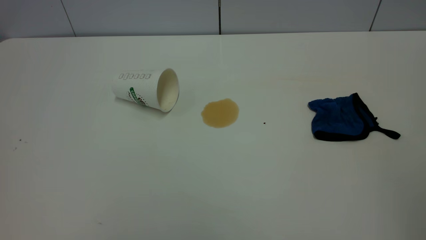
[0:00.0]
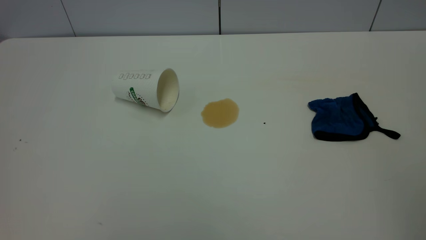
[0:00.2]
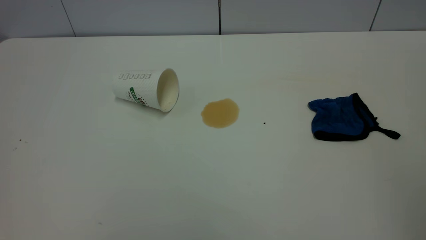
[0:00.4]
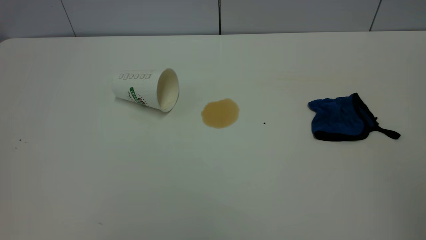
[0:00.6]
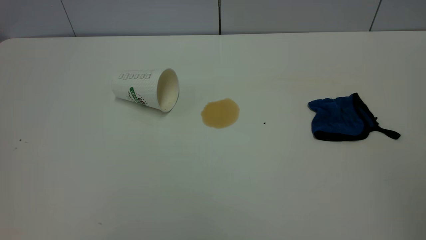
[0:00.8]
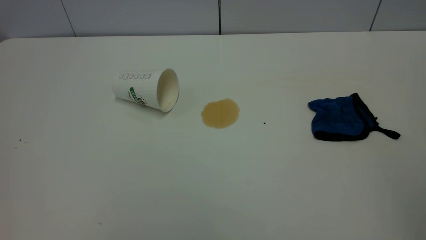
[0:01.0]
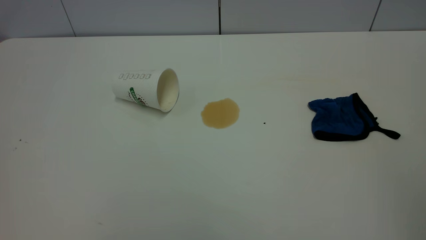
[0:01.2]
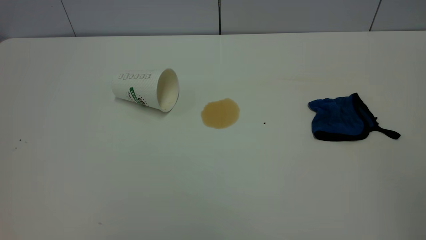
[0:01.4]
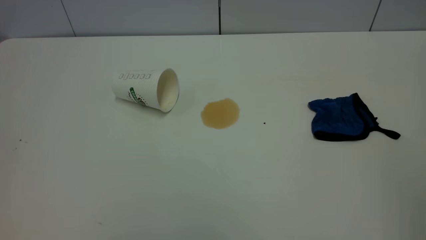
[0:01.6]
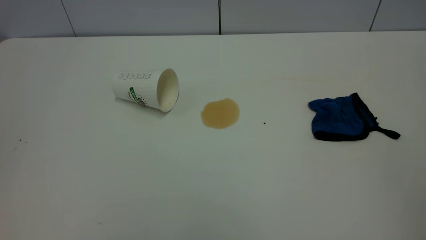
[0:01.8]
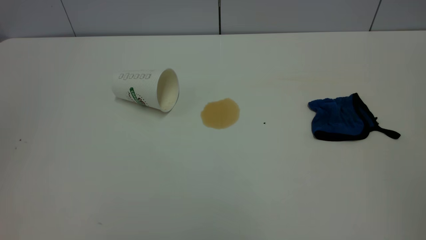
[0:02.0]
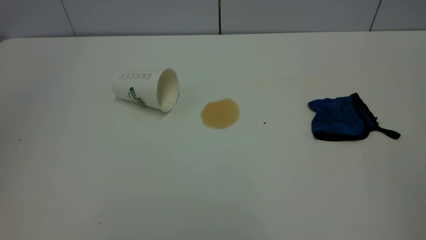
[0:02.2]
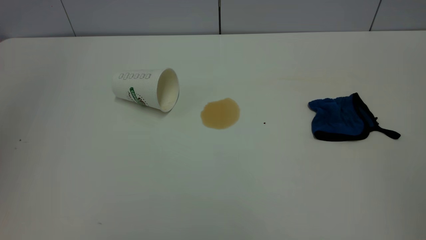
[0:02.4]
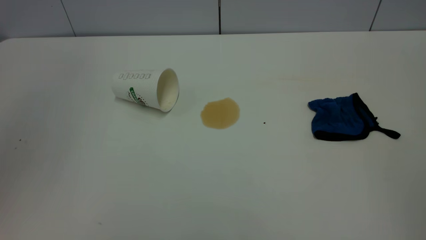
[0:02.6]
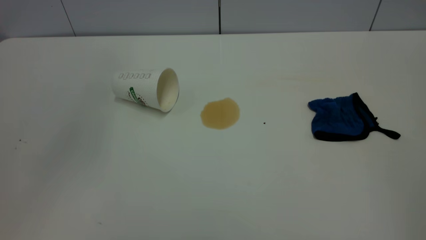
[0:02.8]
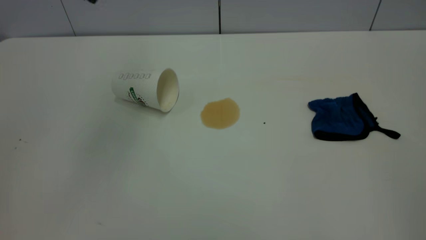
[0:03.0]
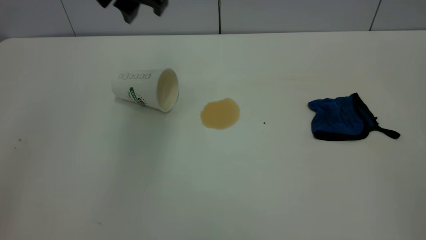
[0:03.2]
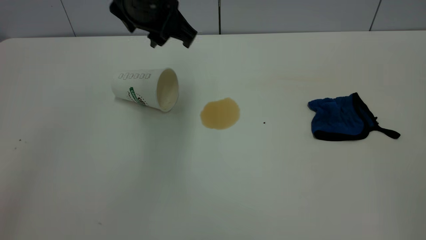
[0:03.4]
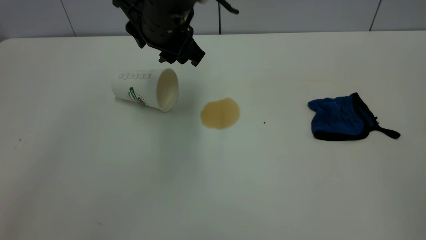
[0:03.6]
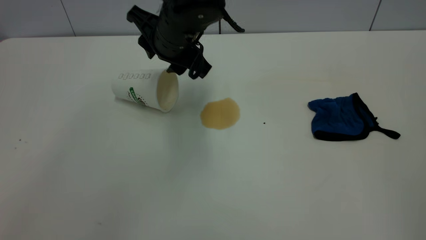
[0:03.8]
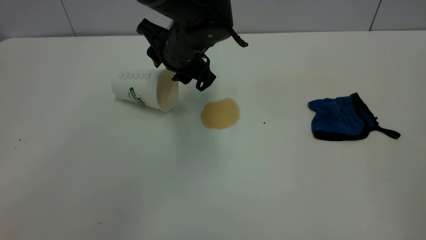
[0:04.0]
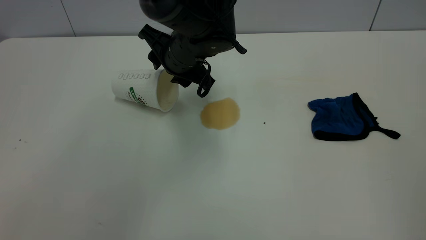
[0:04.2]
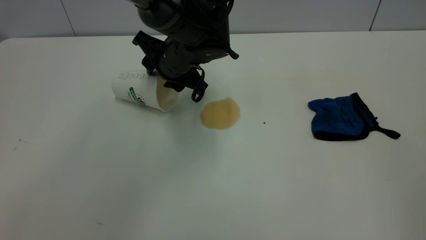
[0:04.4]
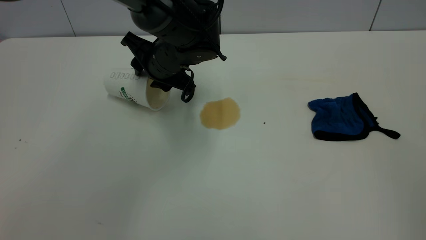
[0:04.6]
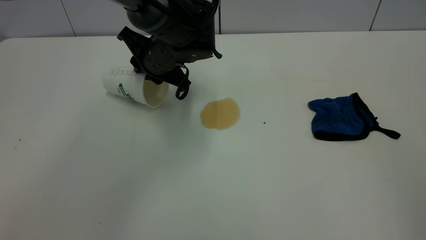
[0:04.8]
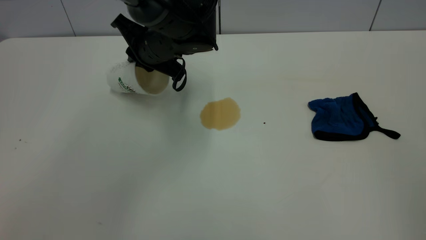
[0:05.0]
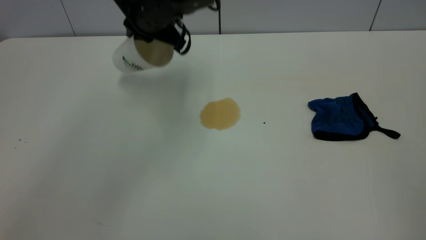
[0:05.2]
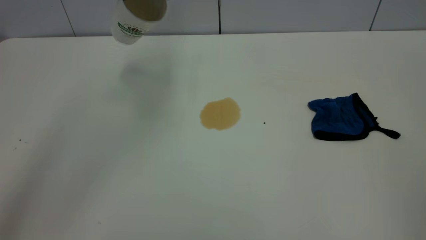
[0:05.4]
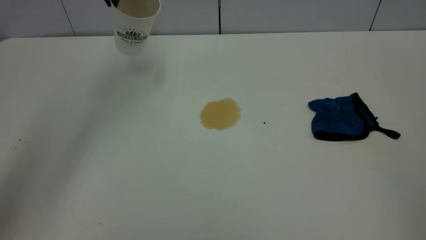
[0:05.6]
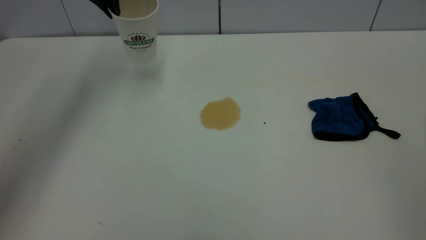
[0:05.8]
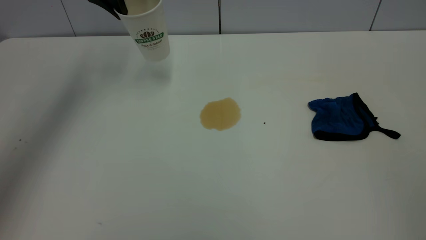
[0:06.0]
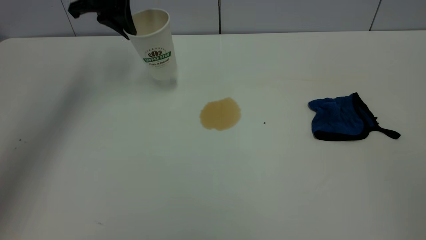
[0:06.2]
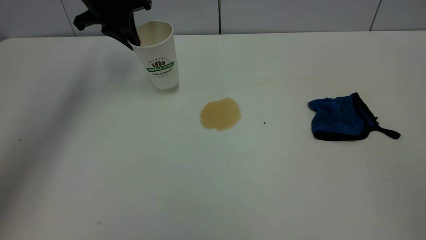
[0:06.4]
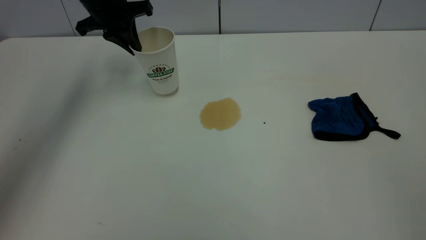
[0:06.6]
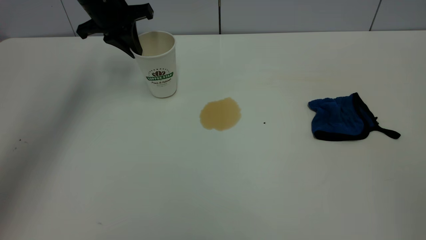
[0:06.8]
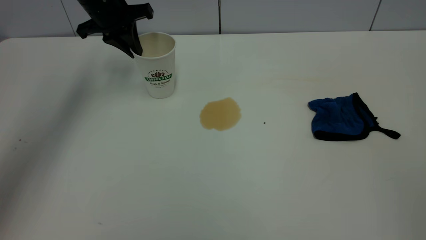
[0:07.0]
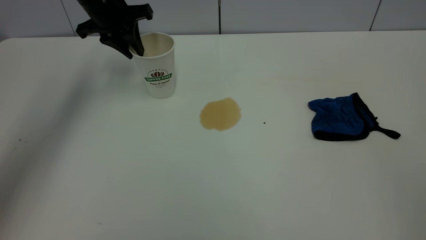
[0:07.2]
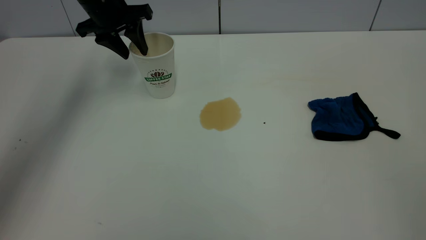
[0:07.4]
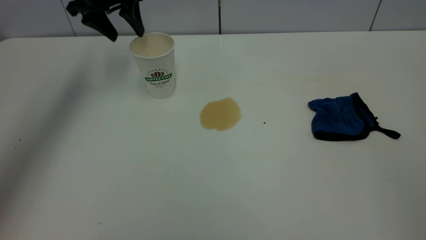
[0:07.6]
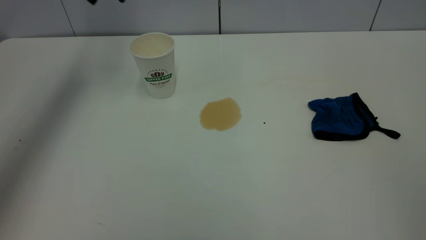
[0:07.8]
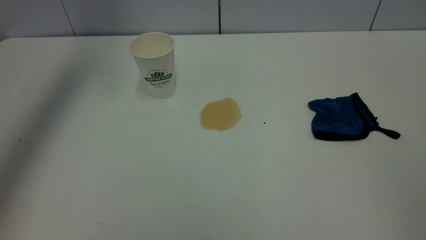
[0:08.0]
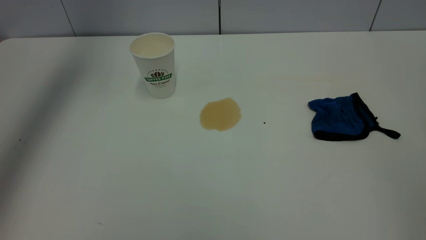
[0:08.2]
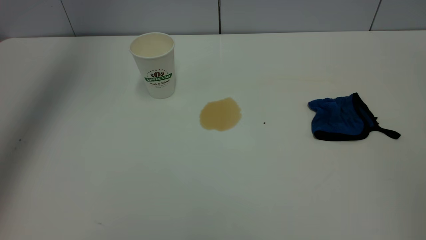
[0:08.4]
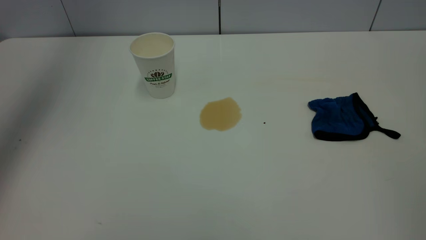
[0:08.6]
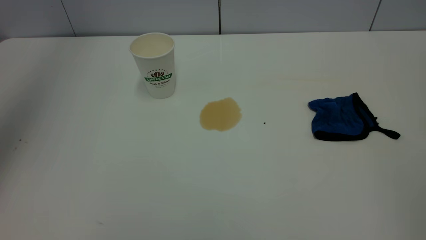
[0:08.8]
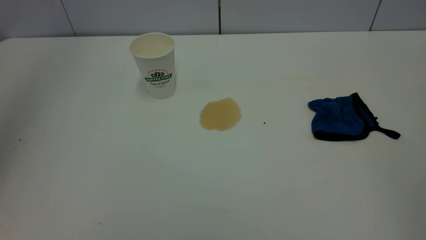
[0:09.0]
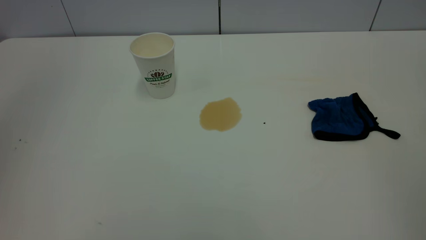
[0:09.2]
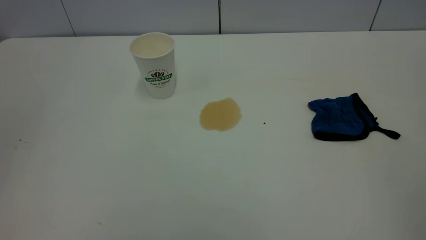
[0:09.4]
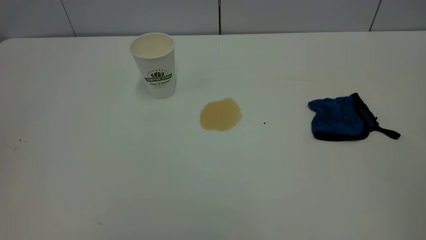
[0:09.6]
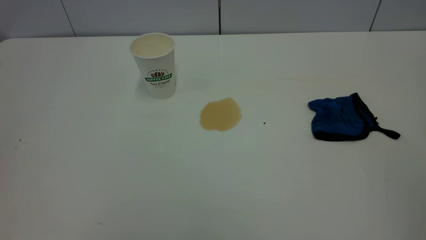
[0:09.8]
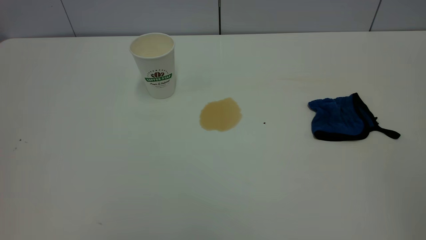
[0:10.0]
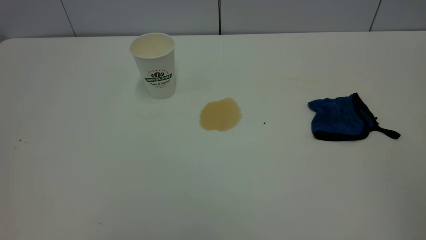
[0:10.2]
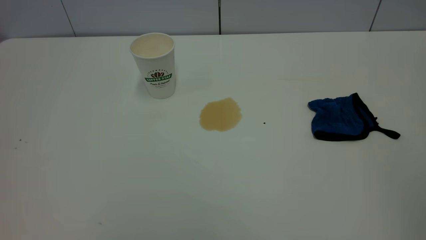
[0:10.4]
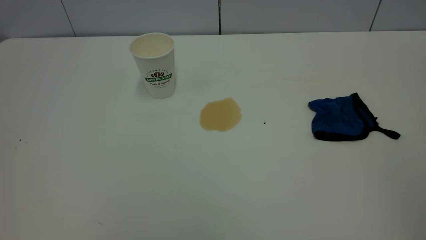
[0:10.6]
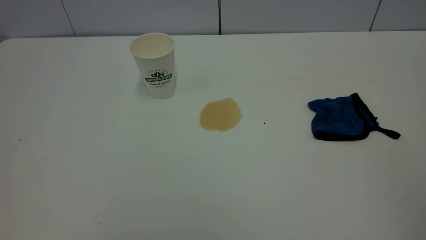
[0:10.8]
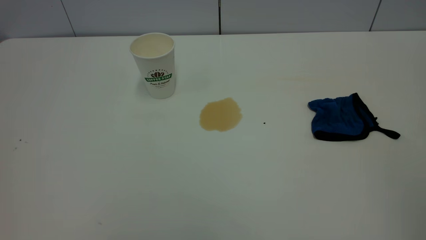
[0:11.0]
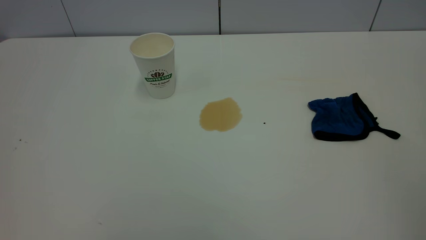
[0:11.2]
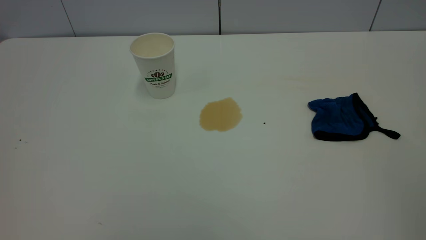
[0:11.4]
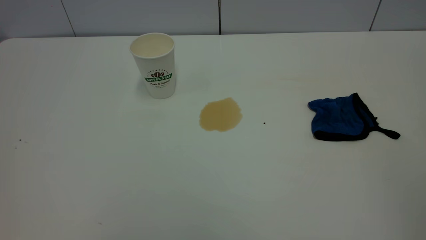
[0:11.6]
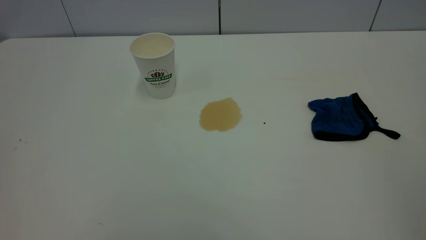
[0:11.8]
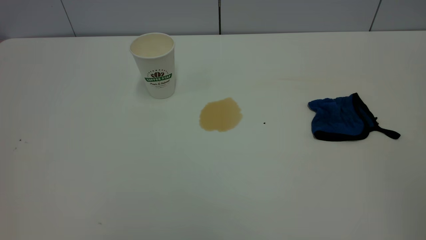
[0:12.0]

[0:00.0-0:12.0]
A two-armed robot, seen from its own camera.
Task of the whole recording: the left gripper pick up the fallen cup and place it upright, the right gripper grasp the blue rag and wipe the tea stain on the table, the right gripper put the blue rag back in its original position.
Step, 0:00.0 to 0:07.4: Stand the paper cup upright.
0:01.6 to 0:03.0: The left gripper is displaced forward and to the right by approximately 40 cm.
0:03.0 to 0:04.4: The left gripper travels downward and to the right by roughly 25 cm.
0:04.4 to 0:06.0: The left gripper goes approximately 25 cm to the left, upward and forward, and closes up.
0:06.0 to 0:07.6: The left gripper opens up.
0:07.6 to 0:09.0: The left gripper goes some 35 cm backward and upward, and closes.
0:10.4 to 0:12.0: Neither gripper changes place.

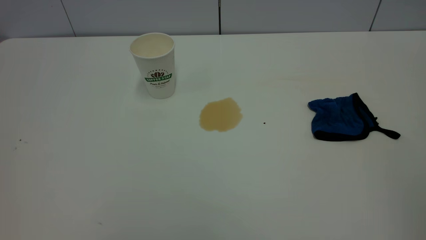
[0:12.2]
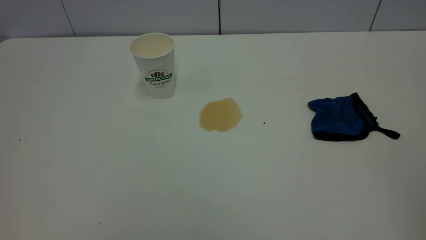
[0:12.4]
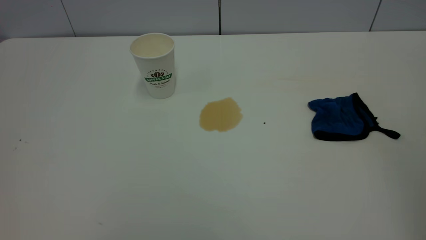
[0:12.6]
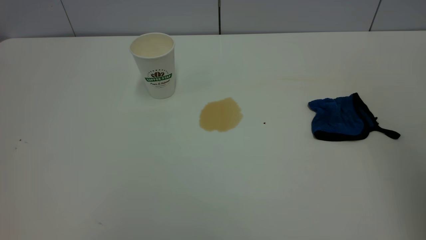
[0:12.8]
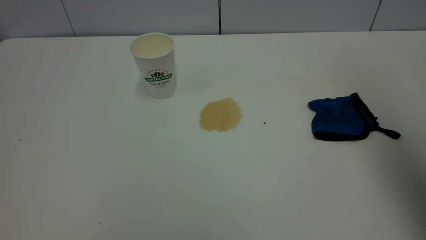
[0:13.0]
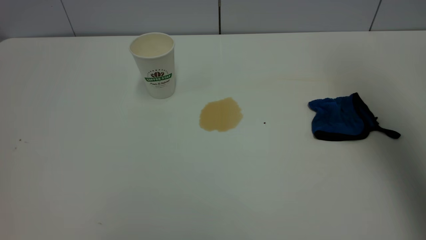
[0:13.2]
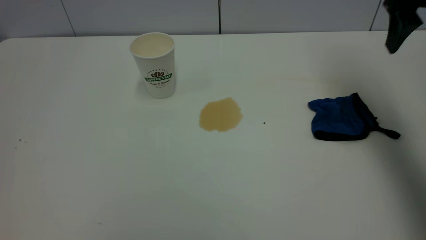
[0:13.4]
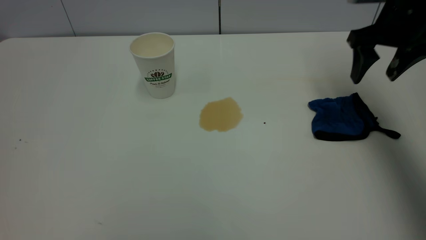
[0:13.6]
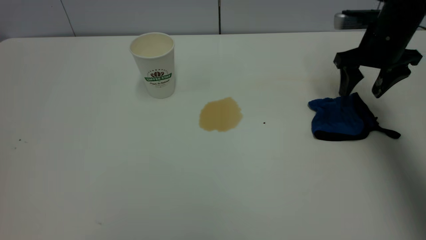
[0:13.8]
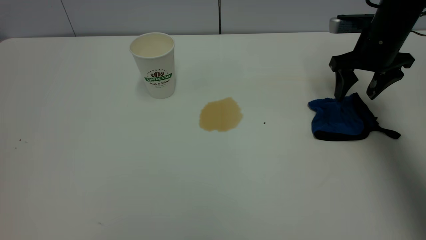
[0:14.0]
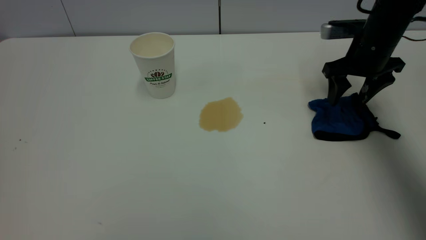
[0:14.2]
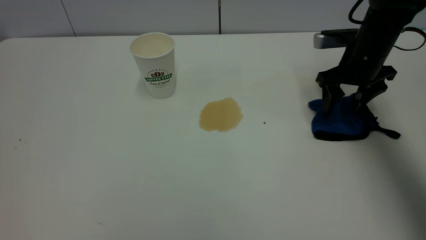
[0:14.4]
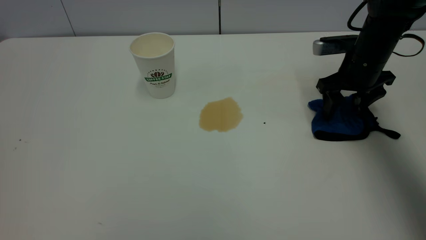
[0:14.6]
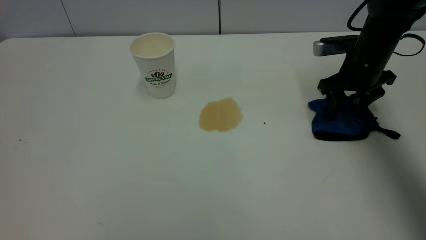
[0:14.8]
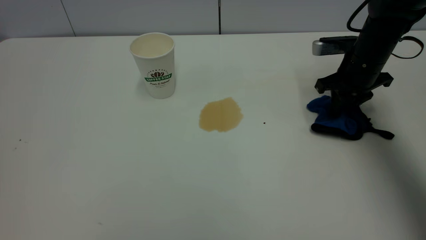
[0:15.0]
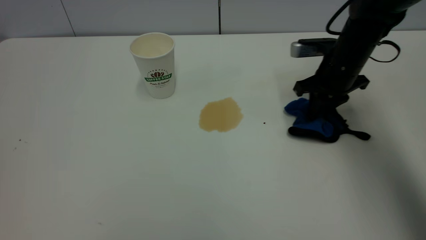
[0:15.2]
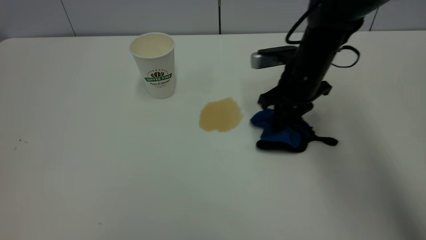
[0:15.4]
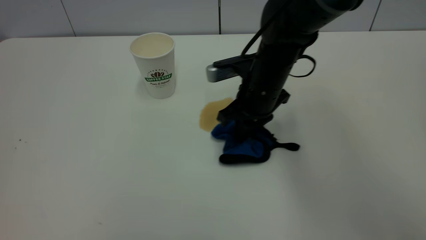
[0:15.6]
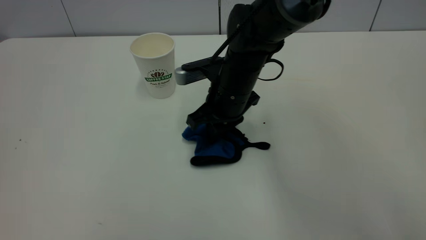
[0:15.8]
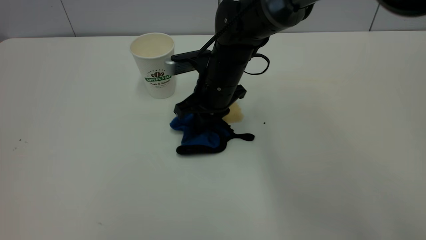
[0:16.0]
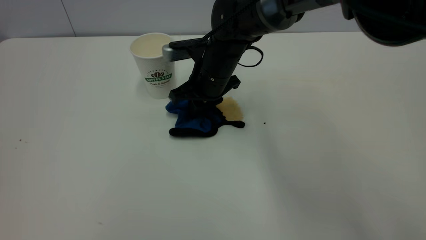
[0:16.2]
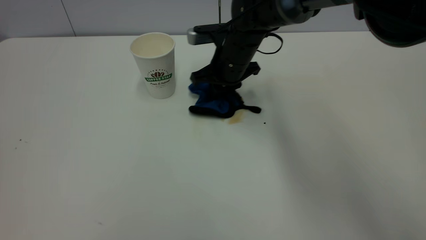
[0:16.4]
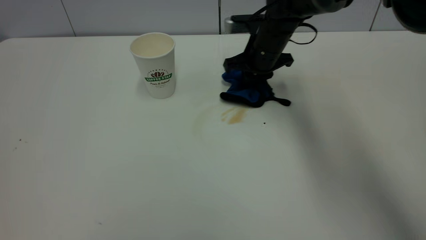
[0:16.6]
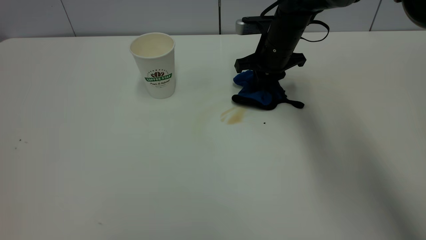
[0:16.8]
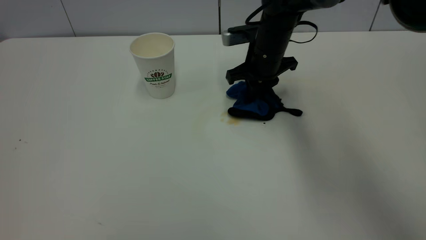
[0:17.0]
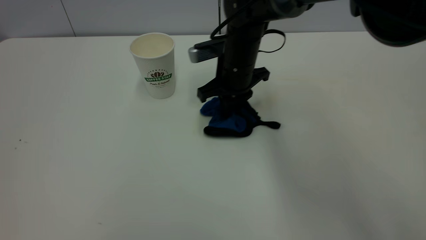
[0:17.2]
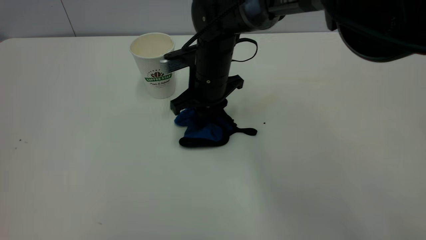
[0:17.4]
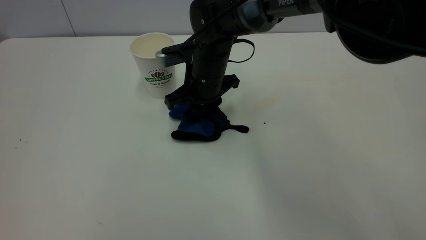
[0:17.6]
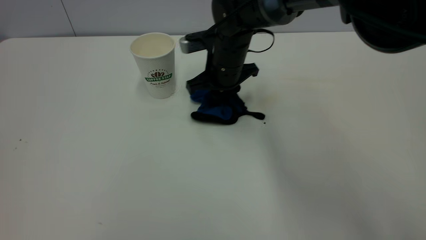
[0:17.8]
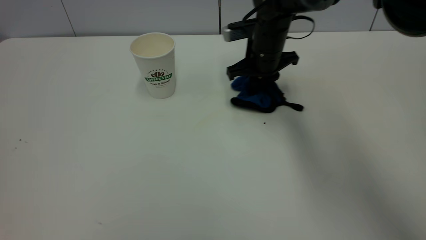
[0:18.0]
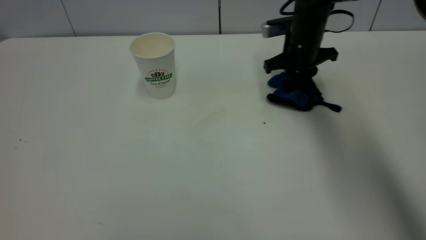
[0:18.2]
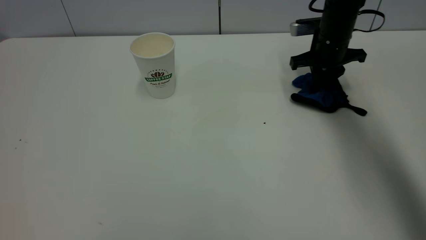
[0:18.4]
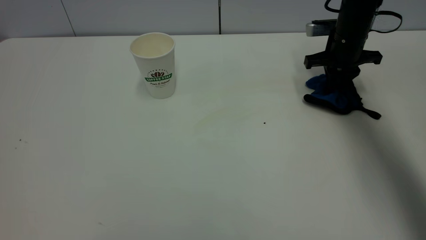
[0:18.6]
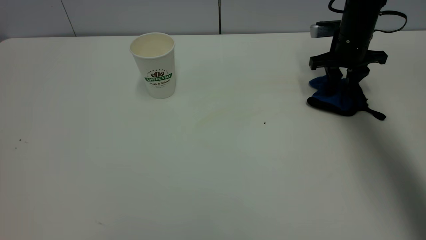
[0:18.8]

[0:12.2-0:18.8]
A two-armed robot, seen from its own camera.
Task of the whole recording: the left gripper pick up the fallen cup and place it upright, the right gripper grasp the blue rag and wipe the tea stain on the table, the right gripper put the blue rag back in its original position.
0:12.2 to 0:13.8: The right gripper moves forward and downward, approximately 50 cm, and opens its fingers.
0:13.8 to 0:15.4: The right gripper is displaced to the left by some 15 cm, and closes up.
0:15.4 to 0:17.2: The right gripper swings left and right, about 10 cm each way, with 2 reversals.
0:17.2 to 0:18.8: The right gripper shifts approximately 25 cm to the right, and opens its fingers.
